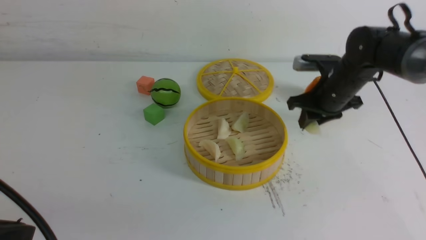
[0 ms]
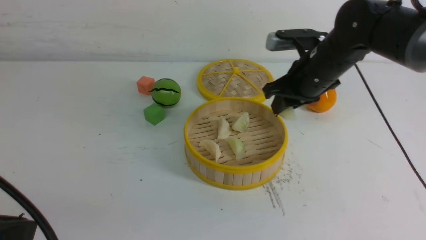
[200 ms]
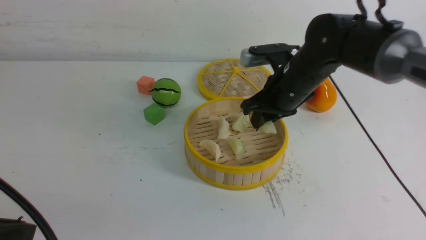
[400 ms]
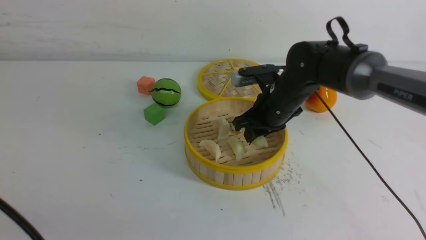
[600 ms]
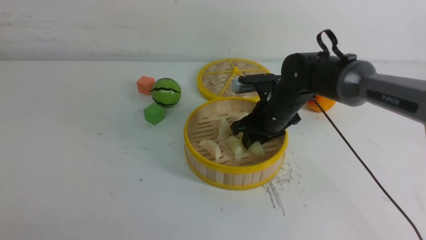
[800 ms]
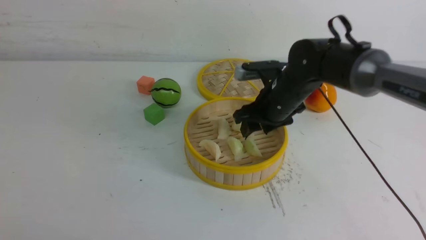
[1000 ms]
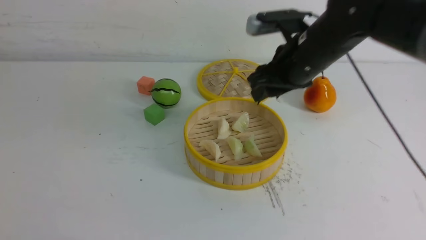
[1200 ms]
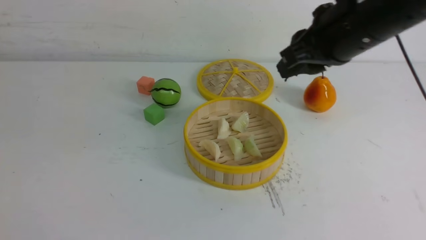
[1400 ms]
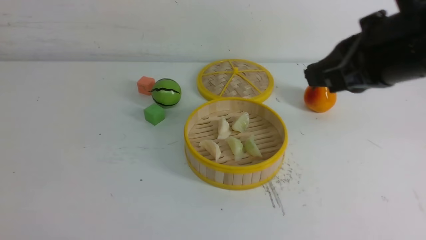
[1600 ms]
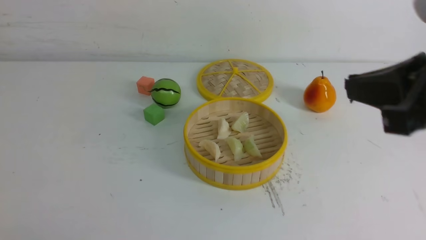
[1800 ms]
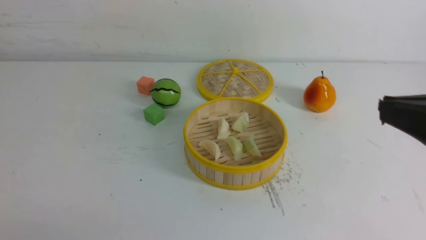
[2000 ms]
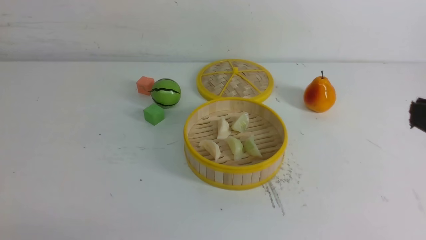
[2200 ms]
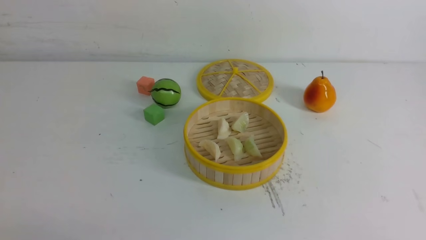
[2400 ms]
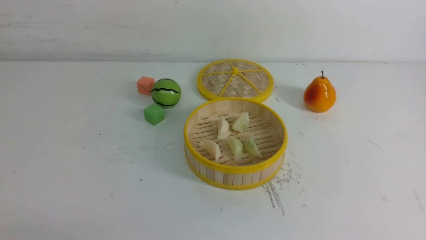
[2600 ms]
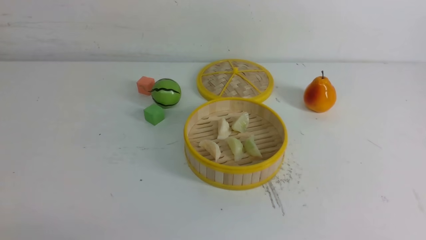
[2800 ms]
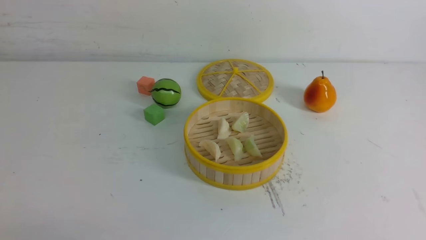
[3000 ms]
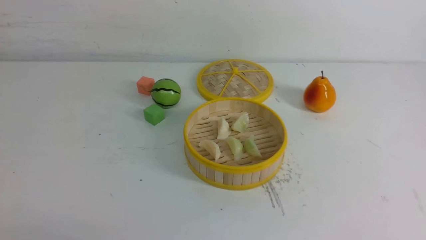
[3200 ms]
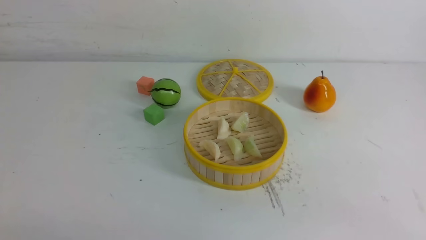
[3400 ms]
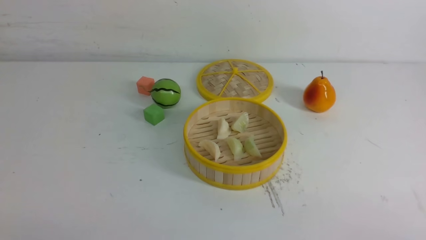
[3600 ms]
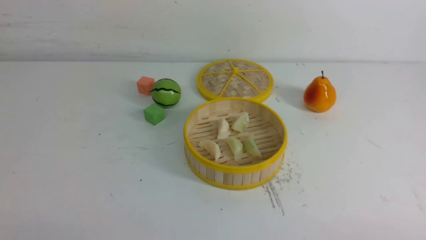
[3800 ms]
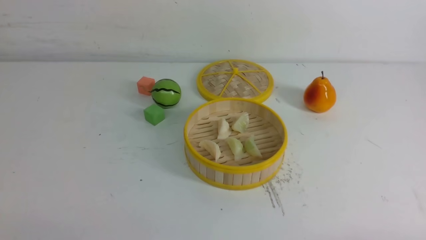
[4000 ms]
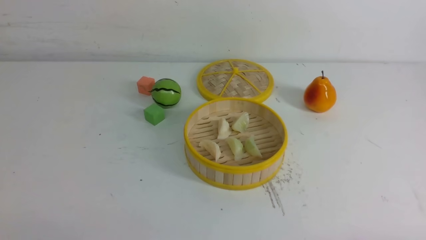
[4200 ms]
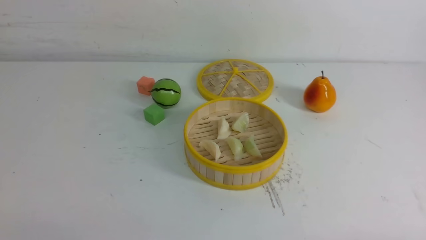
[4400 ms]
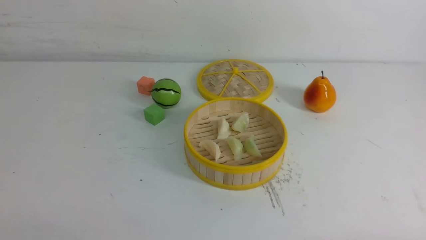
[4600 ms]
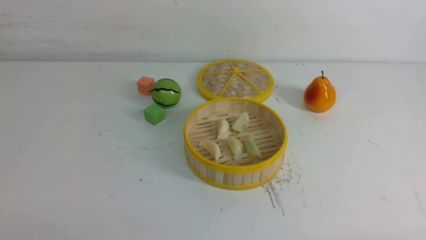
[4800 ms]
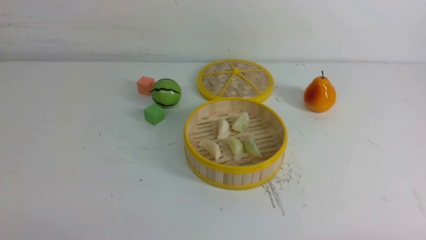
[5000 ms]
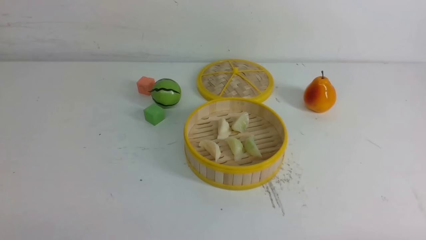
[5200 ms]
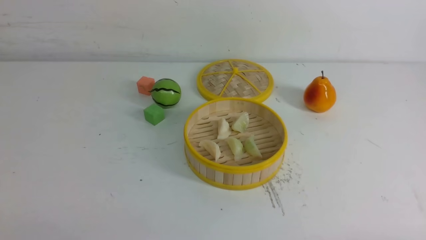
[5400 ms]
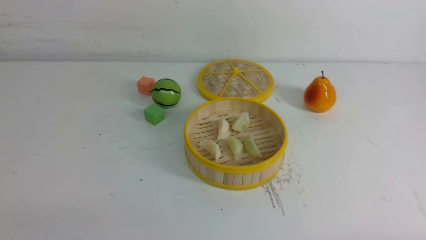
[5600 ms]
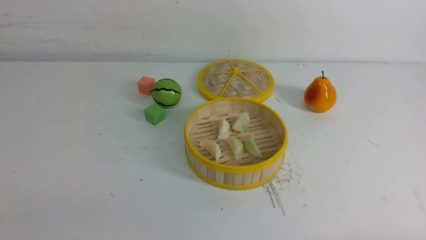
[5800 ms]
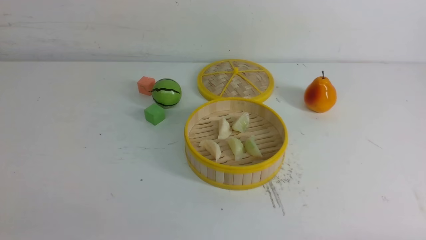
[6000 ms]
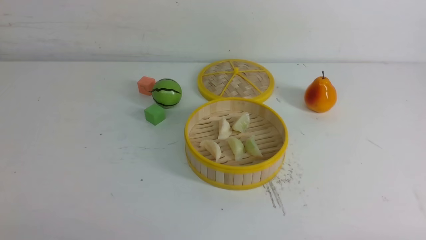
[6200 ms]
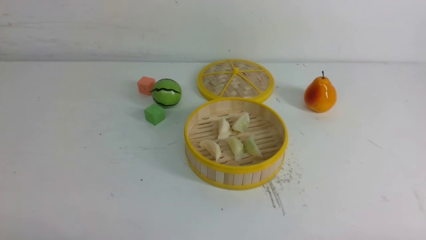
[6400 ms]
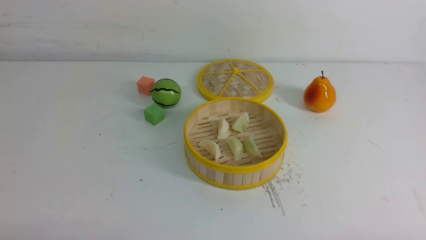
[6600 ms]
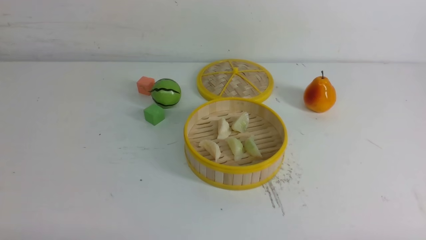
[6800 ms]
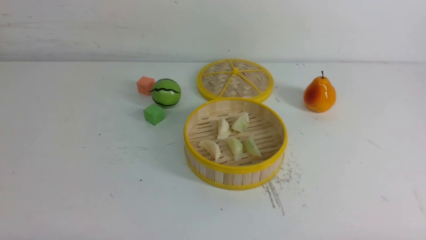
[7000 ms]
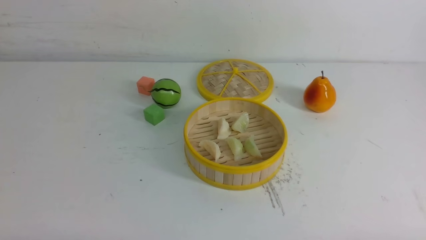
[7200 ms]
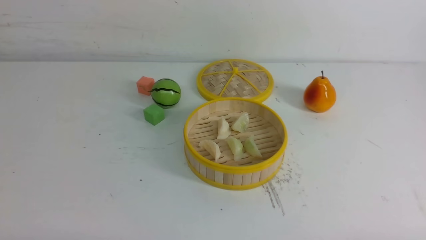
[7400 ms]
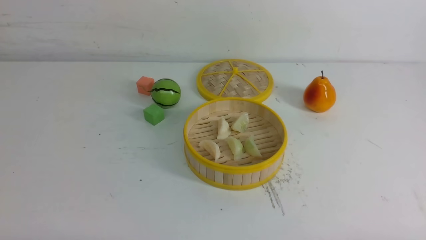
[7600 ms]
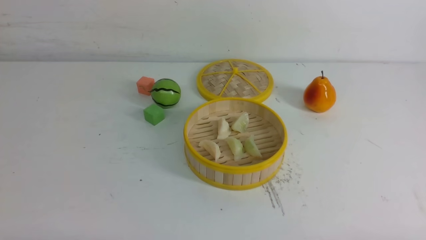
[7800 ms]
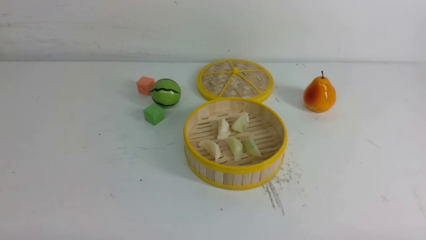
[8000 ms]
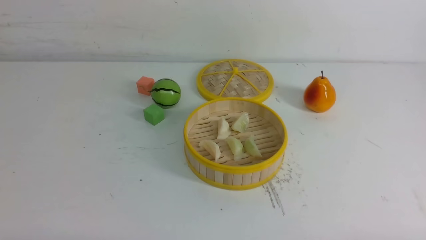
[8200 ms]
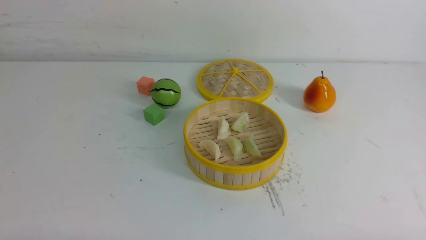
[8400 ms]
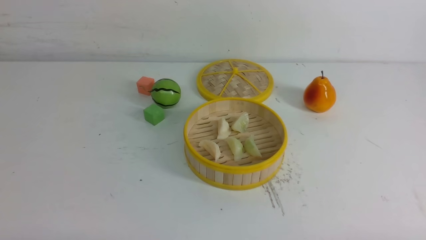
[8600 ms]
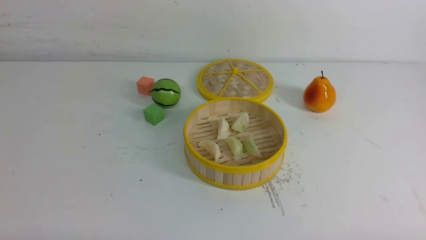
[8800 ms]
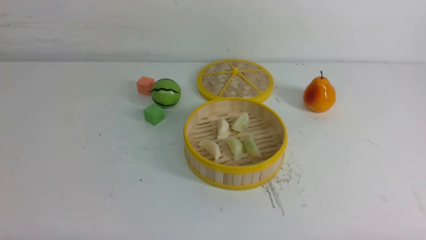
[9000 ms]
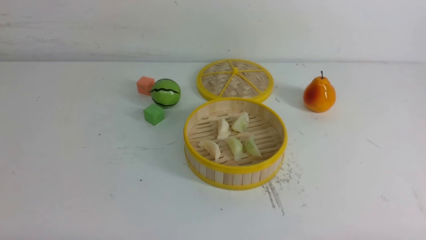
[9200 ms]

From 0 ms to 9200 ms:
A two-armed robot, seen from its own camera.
Task of the whole recording: put the dumplings into the steamer on the white table.
Step, from 0 ms to 800 ms: use the right arm to put the dumpling into the steamer.
From 0 ms to 1600 ms: The left gripper is displaced backward and to the left by roughly 10 cm. Meanwhile the right gripper goes some 30 cm backward and upward, and opens and closes again.
From 1600 ms to 3000 ms: The right gripper travels backward and to the right by about 15 cm.
From 7600 ms to 9200 ms: Both grippers stay put.

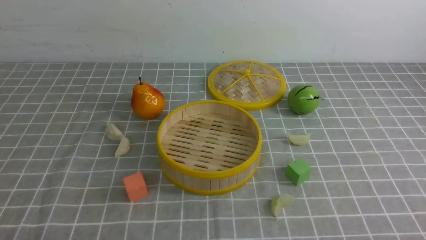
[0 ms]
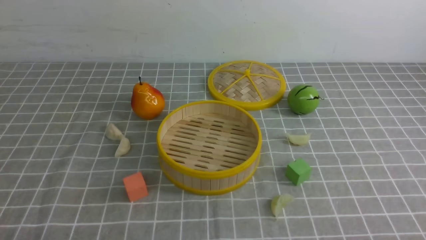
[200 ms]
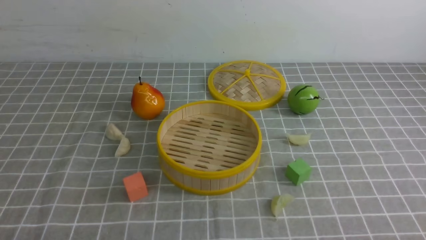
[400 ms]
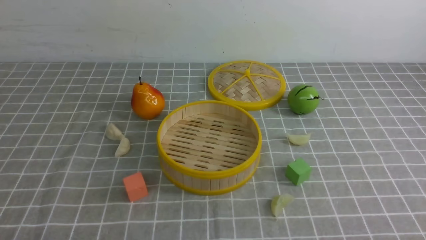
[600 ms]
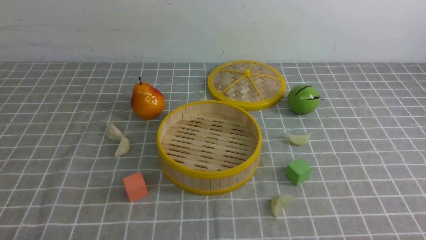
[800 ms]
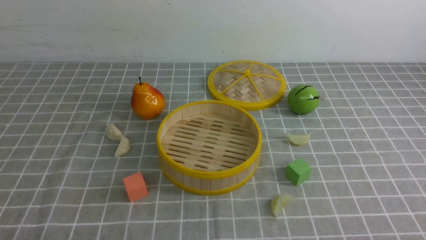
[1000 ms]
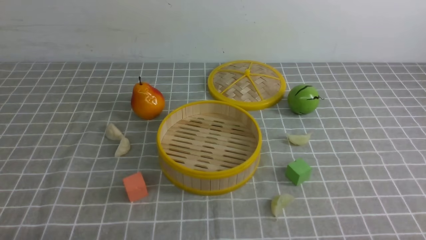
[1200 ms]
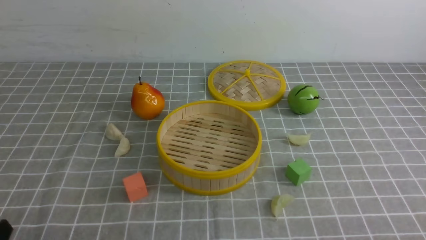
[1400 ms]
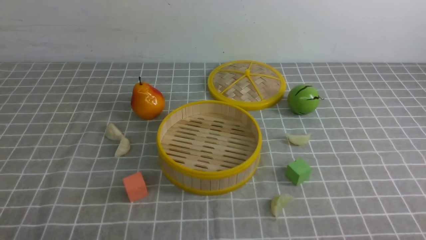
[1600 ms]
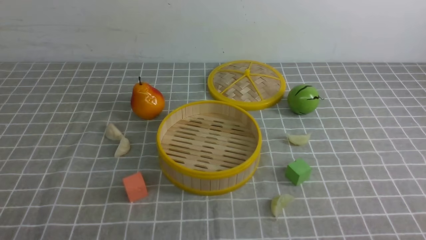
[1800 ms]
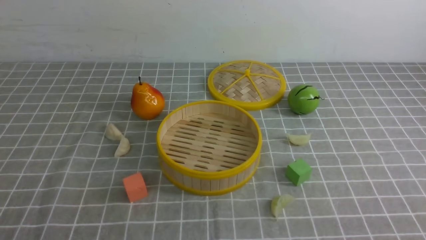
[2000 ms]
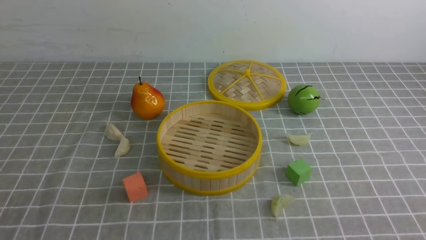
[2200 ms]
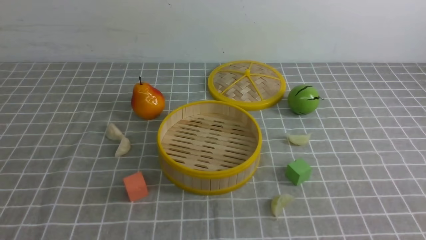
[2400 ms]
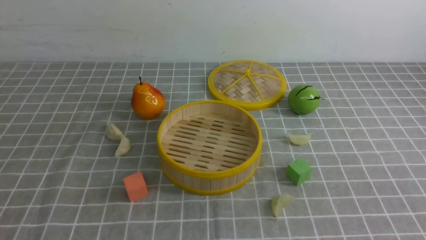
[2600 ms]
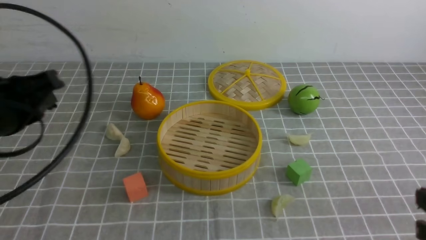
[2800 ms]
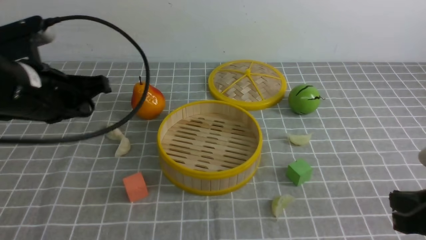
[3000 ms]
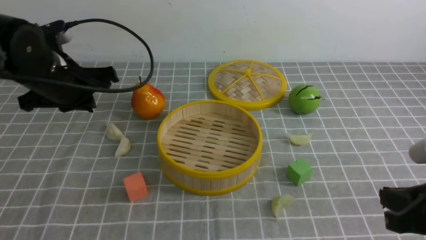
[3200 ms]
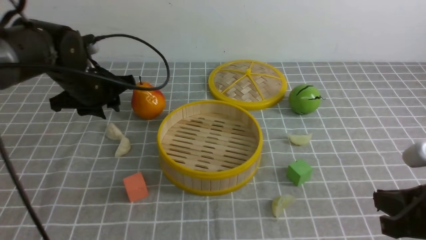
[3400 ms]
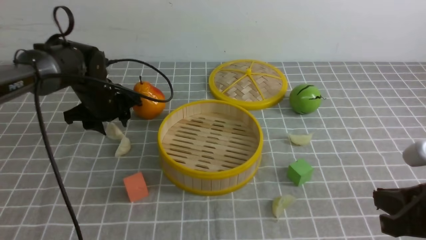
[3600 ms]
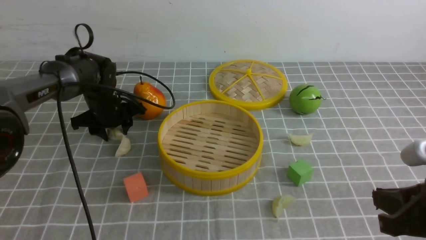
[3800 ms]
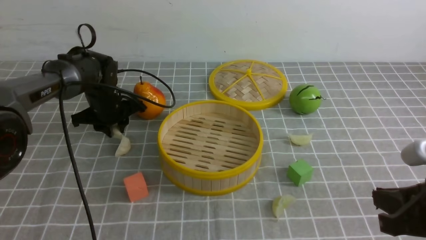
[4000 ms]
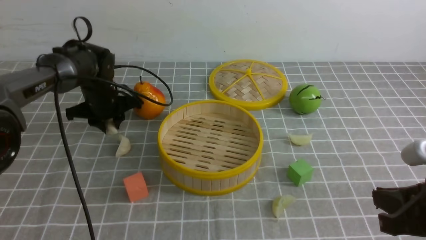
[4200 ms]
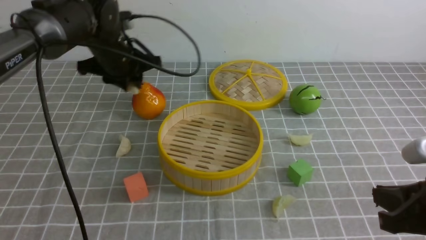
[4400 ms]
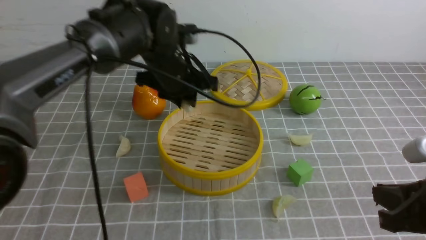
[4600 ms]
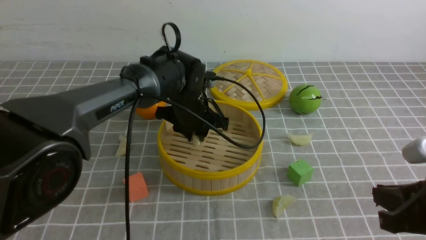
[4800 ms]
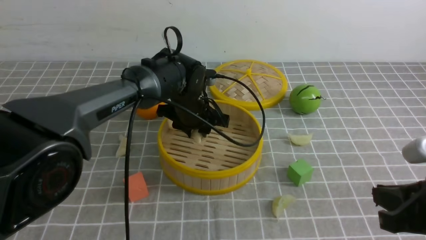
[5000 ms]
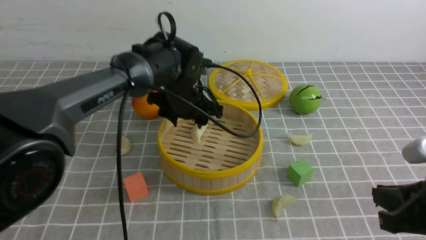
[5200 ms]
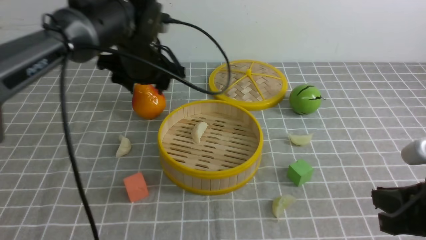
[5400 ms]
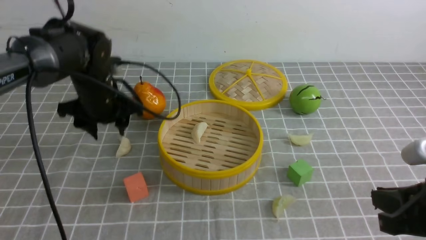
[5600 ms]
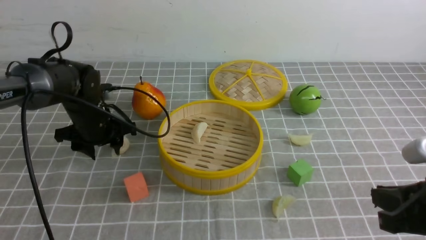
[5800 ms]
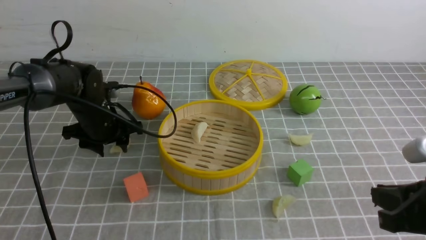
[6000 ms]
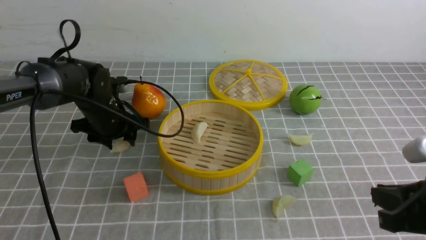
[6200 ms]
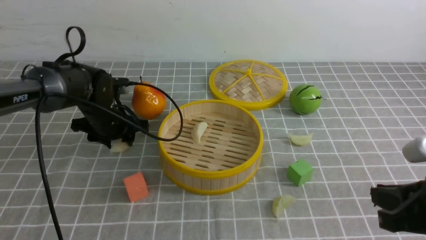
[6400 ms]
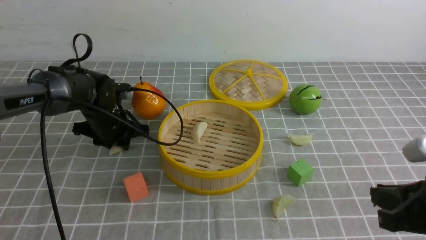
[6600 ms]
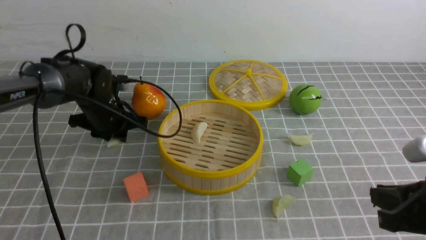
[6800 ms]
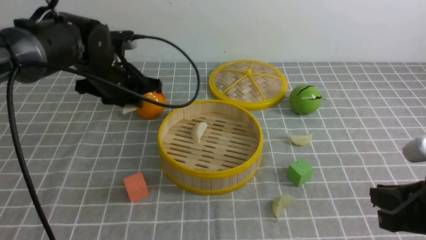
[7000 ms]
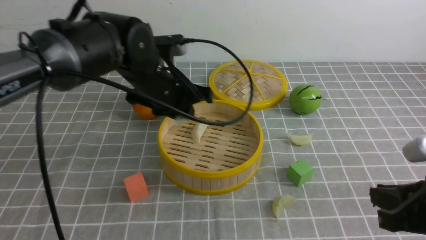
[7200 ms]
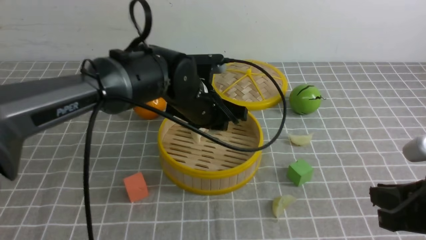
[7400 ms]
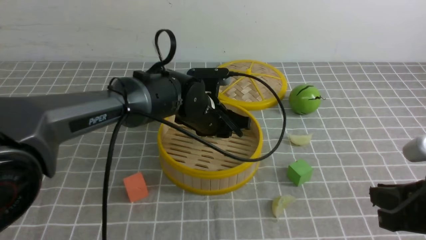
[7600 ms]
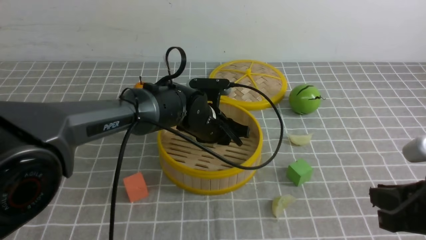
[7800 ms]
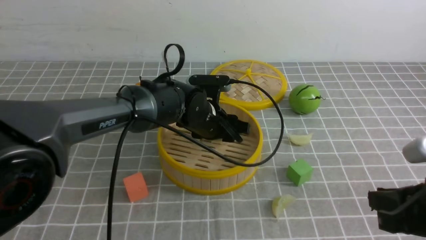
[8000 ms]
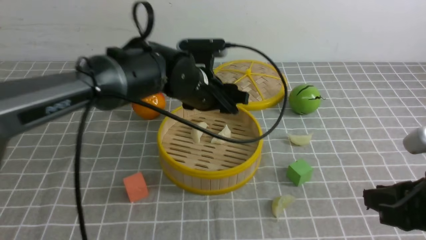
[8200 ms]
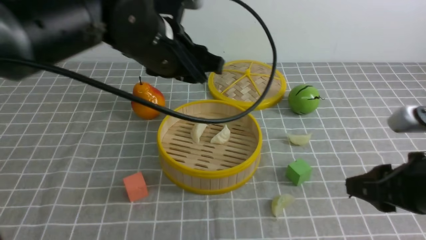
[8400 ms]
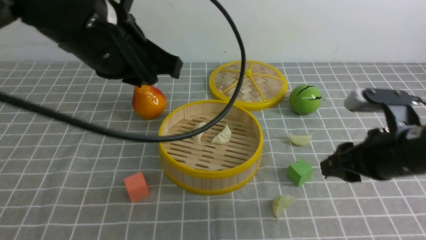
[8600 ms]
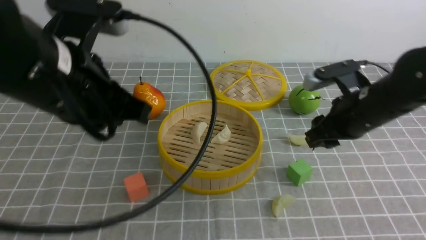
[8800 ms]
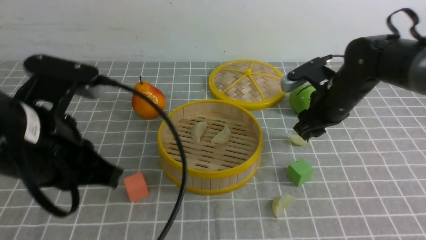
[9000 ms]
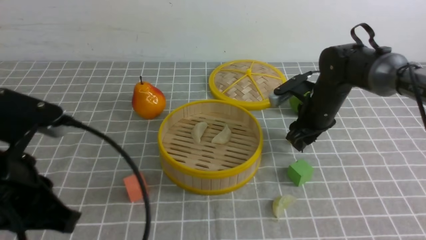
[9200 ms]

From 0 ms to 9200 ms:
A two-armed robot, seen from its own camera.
Task of the whole recording: put the dumplings into the steamer on the table with the grey tablecloth.
Step, from 0 ms to 4200 ms: use the left arm to grab a dumpling.
Step, from 4400 ms to 5200 ms: use the left arm to put the dumpling into the steamer.
Step, from 5400 ms to 6600 ms: use the left arm to grab a dumpling.
Step, from 7000 ms to 8000 ms: use the left arm to put the dumpling into the steamer.
From 1600 ms to 3000 ms: The left gripper shifts about 25 cm forward and upward, and closes its fingers. Meanwhile the right gripper moves forward, roughly 10 cm, and closes.
From 3000 ms to 4600 ms: The left gripper travels forward, to the right and downward by roughly 20 cm, and opens.
From 4600 ms to 6200 ms: The left gripper moves to the left and downward, some 15 cm, and opens its fingers.
From 6200 ms to 7600 ms: The left gripper travels to the right by about 20 cm, and closes up.
From 7600 ms to 9200 ms: The right gripper is displaced forward by some 30 cm, and opens. Meanwhile the left gripper travels backward, to the left and upward by some 30 cm, and closes its fingers.
